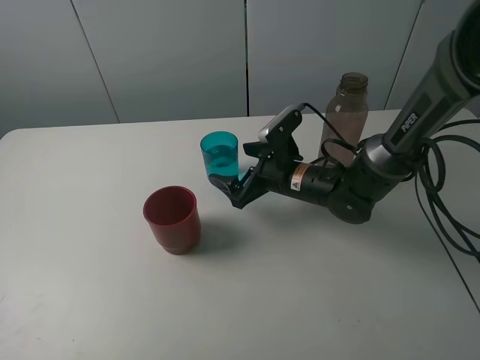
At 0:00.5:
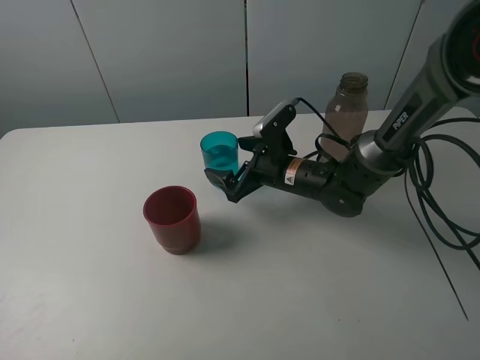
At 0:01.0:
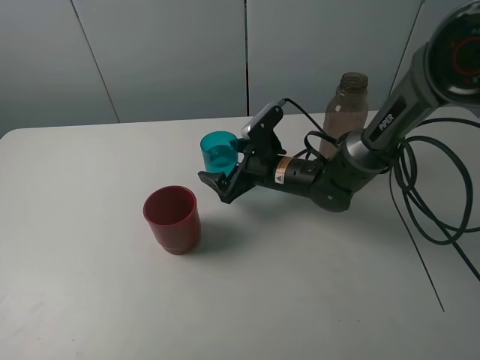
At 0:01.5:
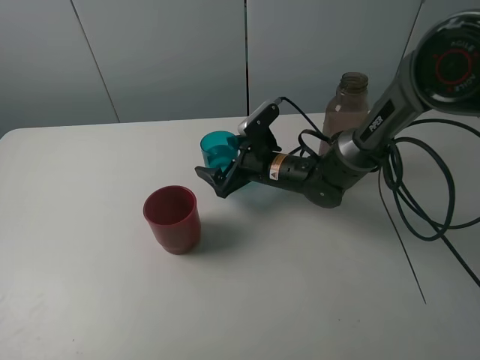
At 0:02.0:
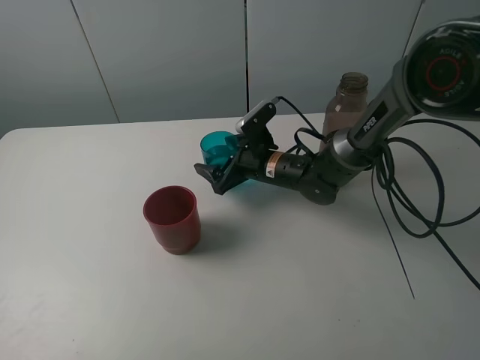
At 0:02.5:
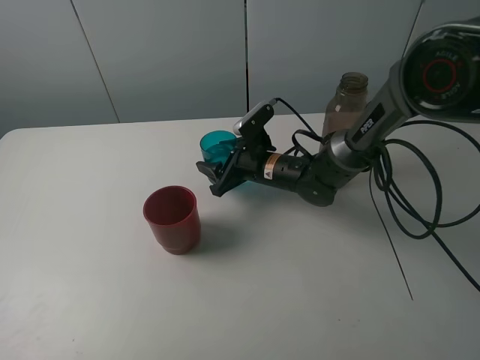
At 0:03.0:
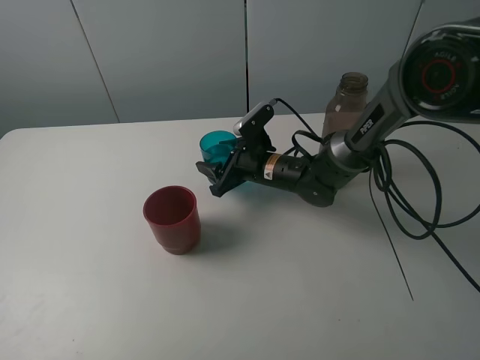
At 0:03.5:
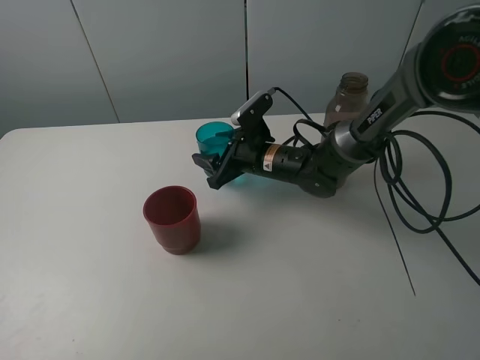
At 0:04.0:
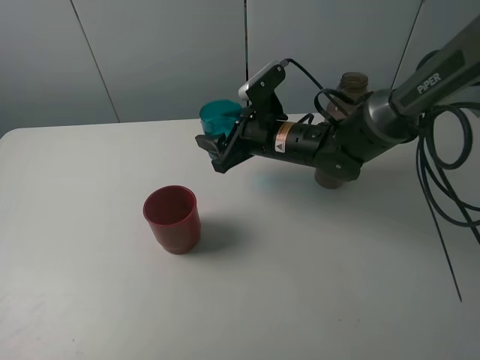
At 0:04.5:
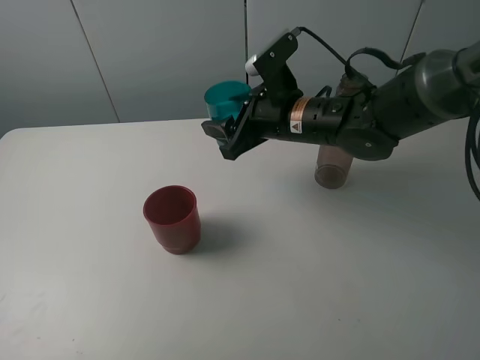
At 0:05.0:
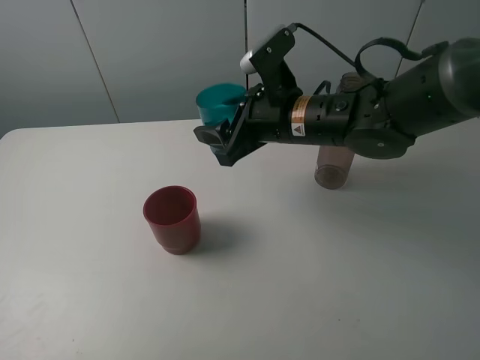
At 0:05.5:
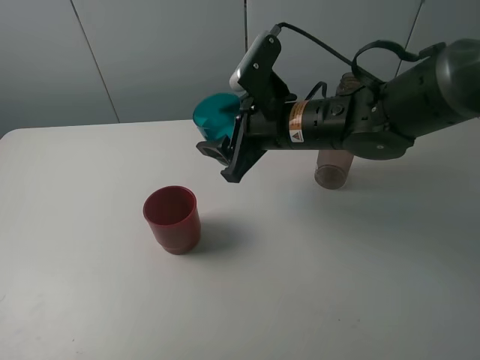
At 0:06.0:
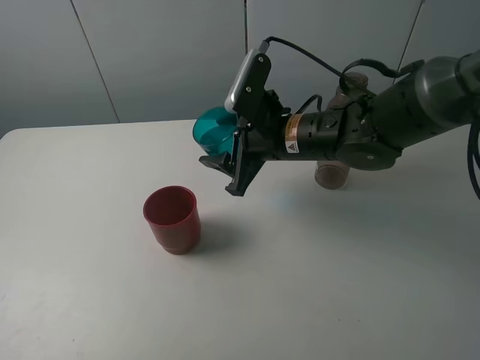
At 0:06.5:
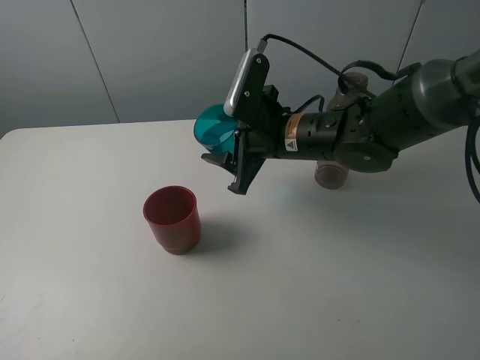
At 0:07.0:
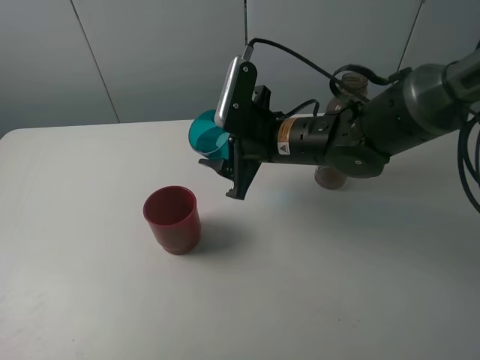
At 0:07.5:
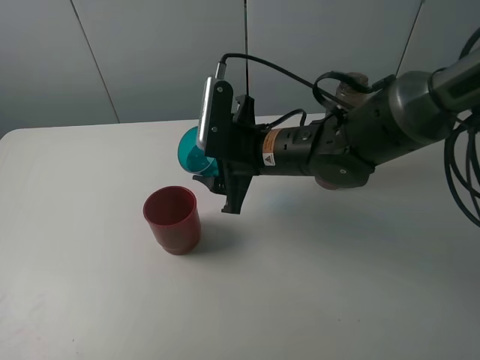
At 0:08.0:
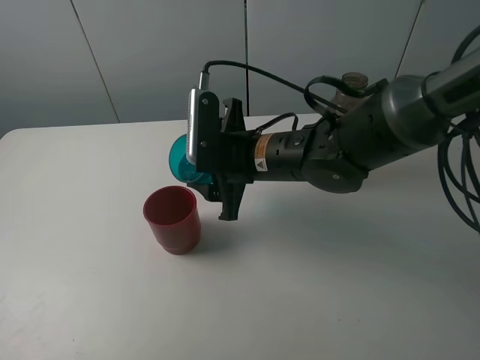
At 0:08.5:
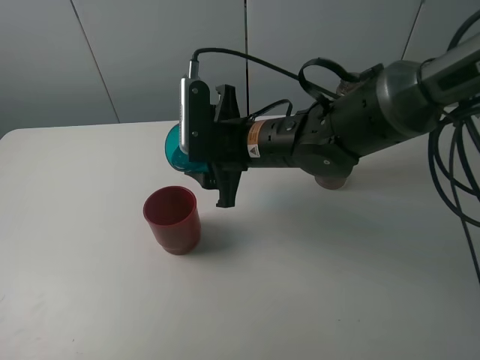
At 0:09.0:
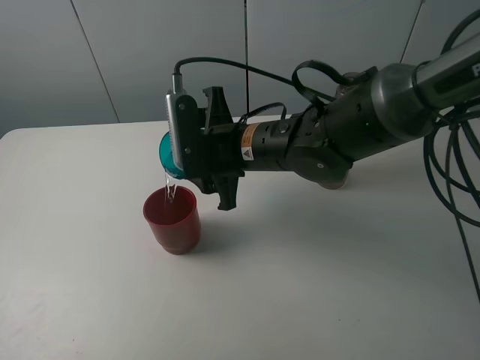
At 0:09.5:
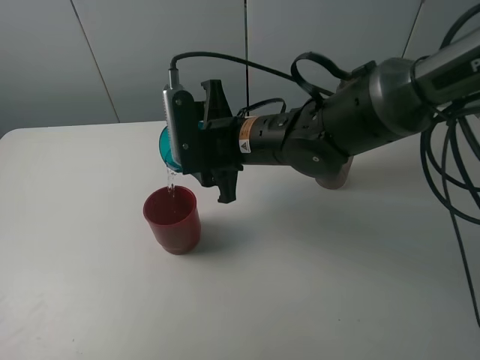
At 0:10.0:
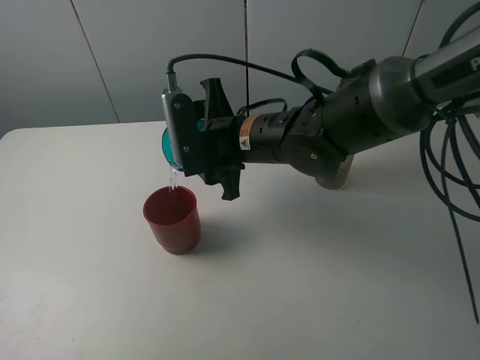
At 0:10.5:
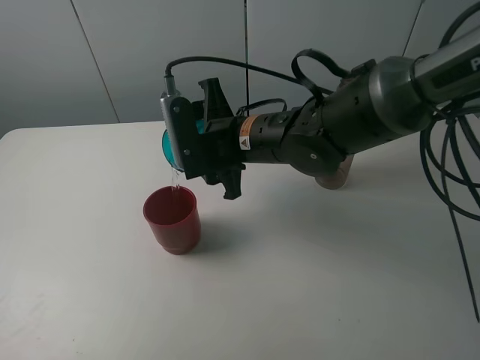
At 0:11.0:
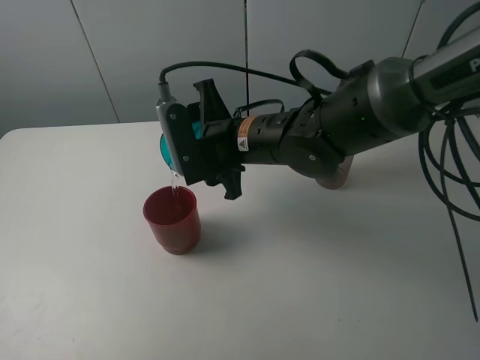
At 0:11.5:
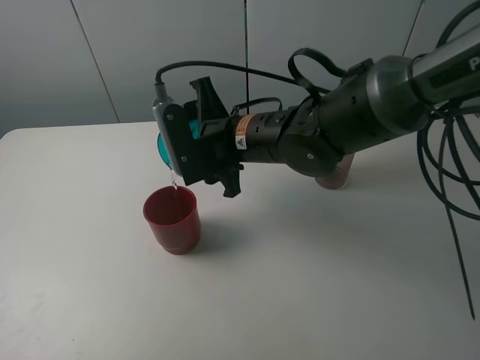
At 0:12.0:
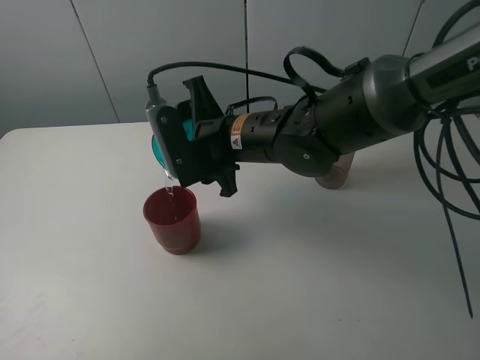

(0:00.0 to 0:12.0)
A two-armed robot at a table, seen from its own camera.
Task of the whole recording: pick up the bottle and pour water into the cup, then pick up the cup containing water and pour it into another cup.
Step, 0:00.0 - 0:02.0: Grasp the blue cup with the right gripper.
0:00.0 - 0:02.0: The right gripper shifts by some 5 cm, and closes up.
0:02.0 - 0:04.0: The right gripper moves upward, about 10 cm, and closes its fingers.
0:04.0 - 0:06.0: The right gripper ends up roughly 5 cm from where it was.
0:08.0 - 0:10.0: The grippers stay close to where they were, moving slightly.
0:10.0 - 0:12.0: The grippers move only a little.

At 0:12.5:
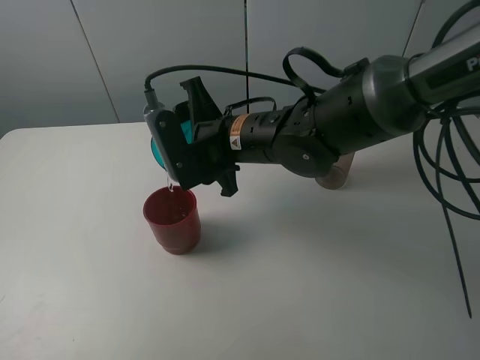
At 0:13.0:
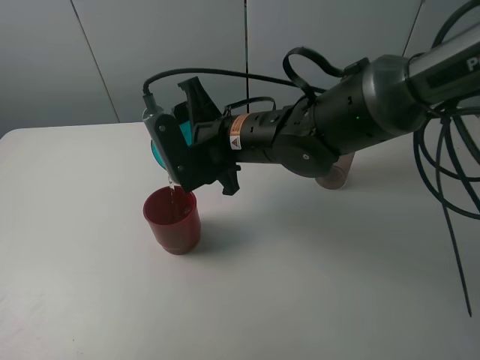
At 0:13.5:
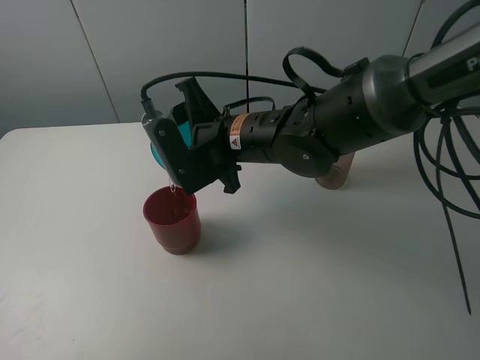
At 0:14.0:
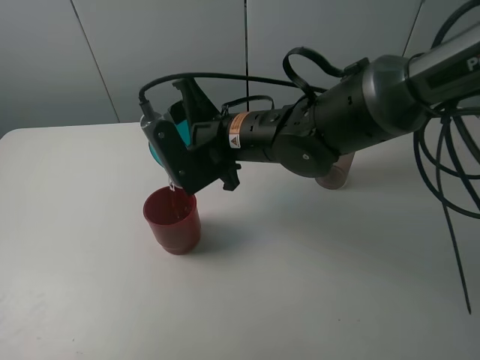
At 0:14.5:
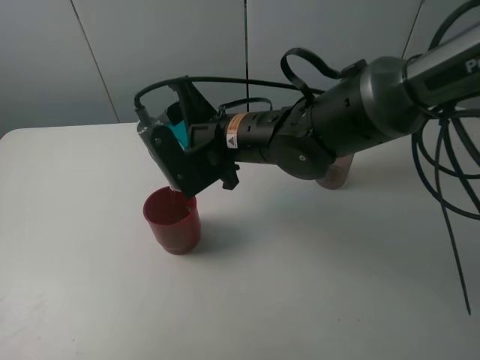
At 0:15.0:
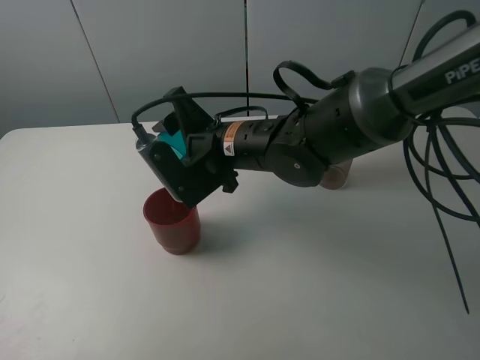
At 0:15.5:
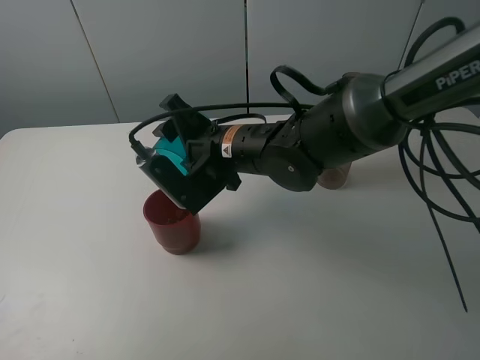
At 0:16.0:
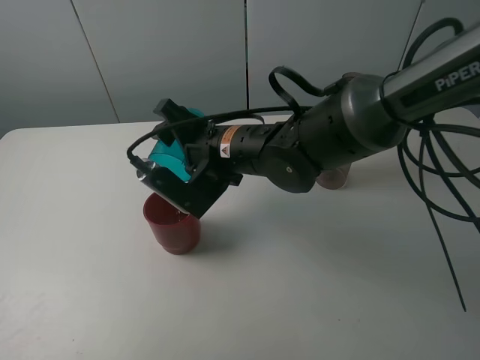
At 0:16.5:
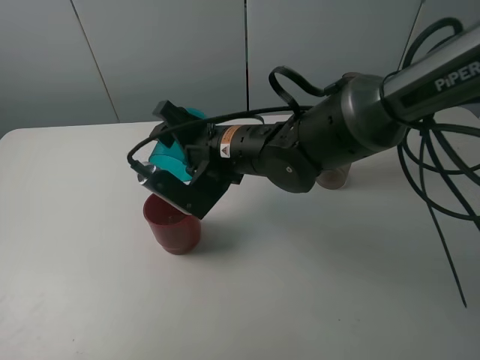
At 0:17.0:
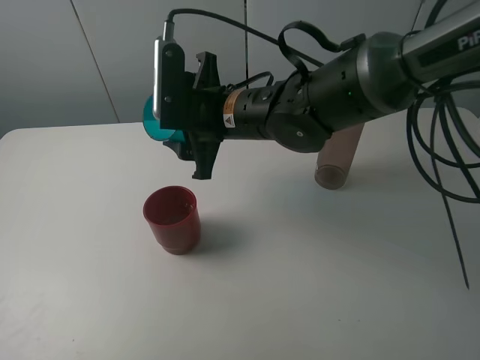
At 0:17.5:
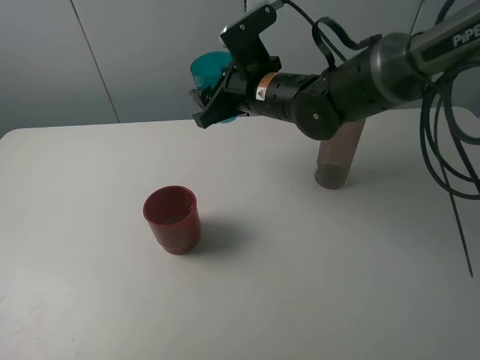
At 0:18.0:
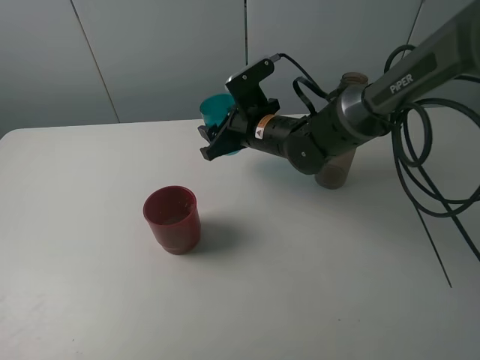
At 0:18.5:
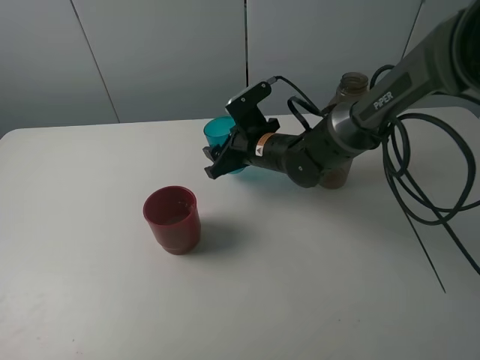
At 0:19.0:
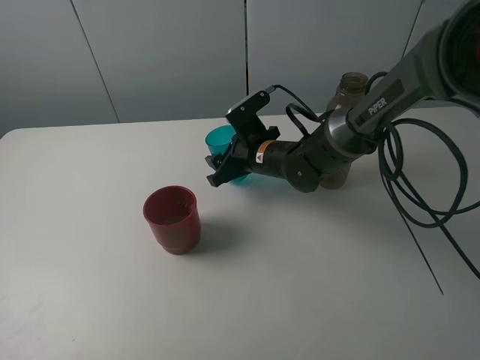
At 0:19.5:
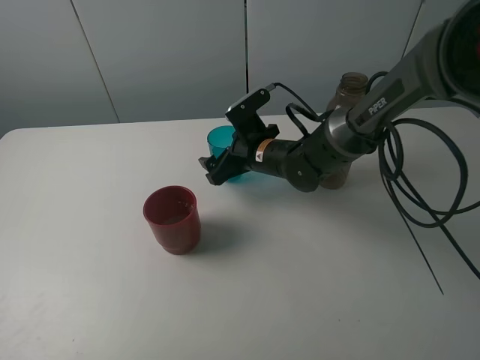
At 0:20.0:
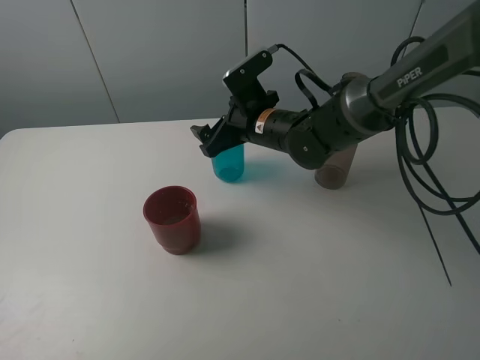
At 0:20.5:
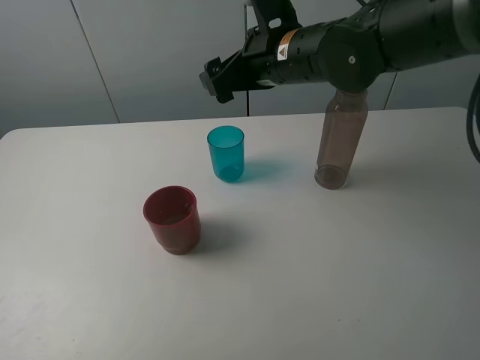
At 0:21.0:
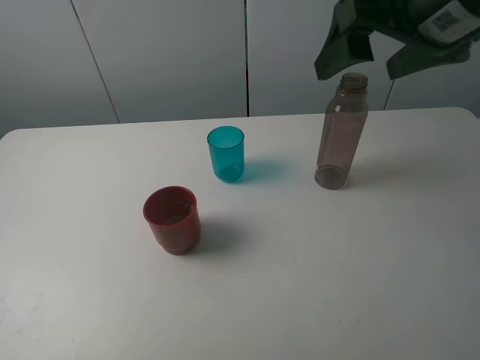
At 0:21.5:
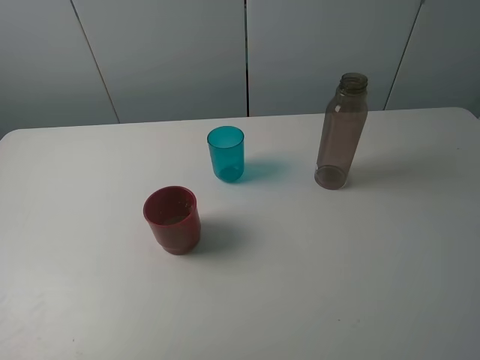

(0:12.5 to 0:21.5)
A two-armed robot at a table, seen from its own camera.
Task of the whole recording: pick up the bottle and pour water into the cup, then pick up the cup containing water and pour it into another cup.
Step, 0:12.5 - 0:16.0: Pour water from blue cup to red cup with the right gripper.
Step, 0:16.5 - 0:19.5: Place the blue cup with the right gripper.
0:12.5 - 0:14.5: The grippers stay close to where they were, moving slightly.
0:17.0 - 0:19.5: The right gripper heads downward and forward, covering some 15 cm, and opens.
0:19.5 - 0:21.5: The right gripper heads upward, backward and to the right, covering some 50 cm.

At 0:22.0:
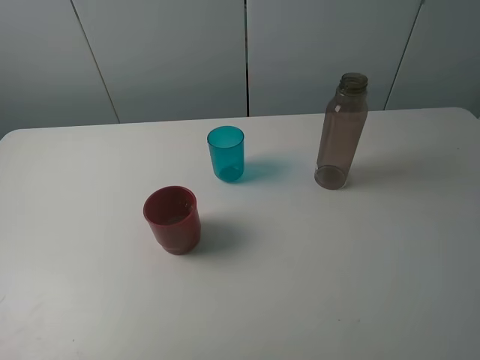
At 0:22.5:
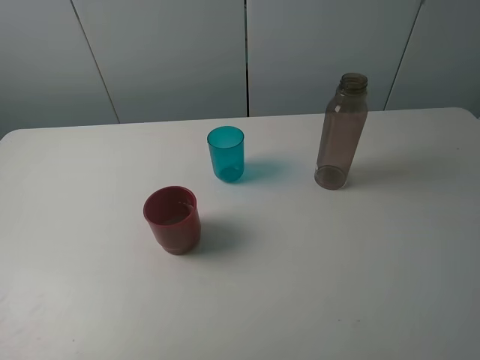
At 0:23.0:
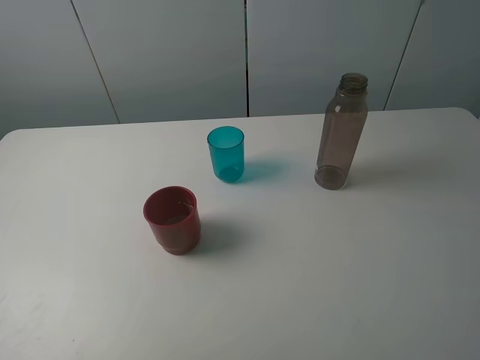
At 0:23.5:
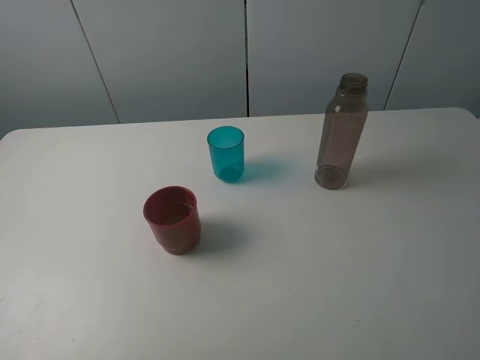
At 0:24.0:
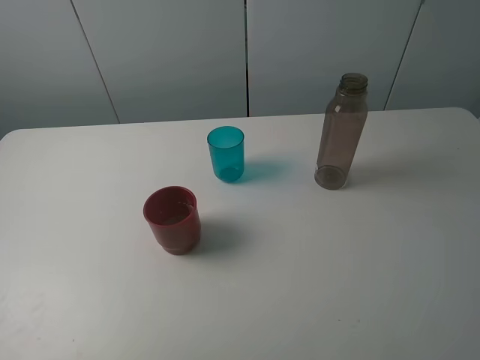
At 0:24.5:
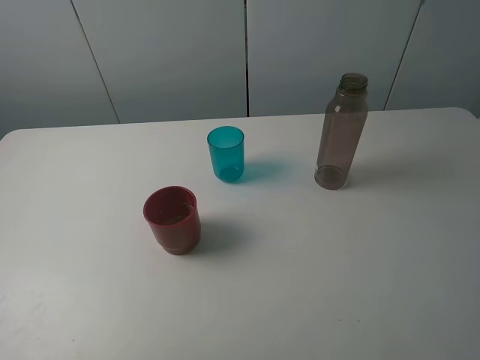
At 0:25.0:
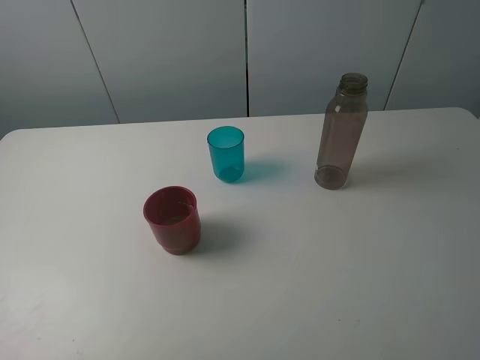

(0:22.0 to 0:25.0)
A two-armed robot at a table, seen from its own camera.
Task of the whole recording: pick up the bottle and pour water into the cup, then pick up the cup containing water and pour it into another cup.
0:23.5 - 0:25.0: The two grippers keep their place.
